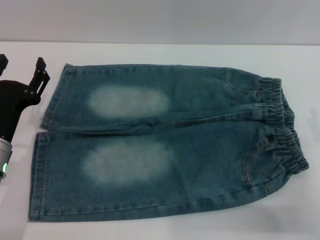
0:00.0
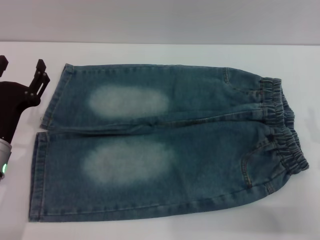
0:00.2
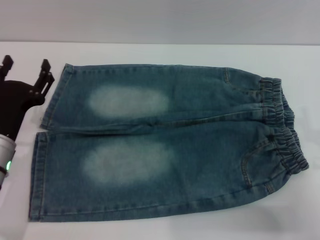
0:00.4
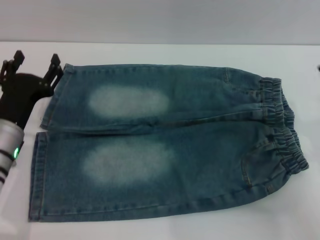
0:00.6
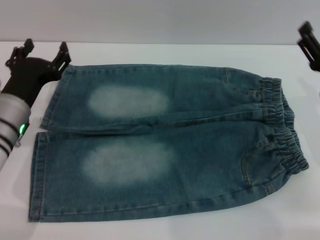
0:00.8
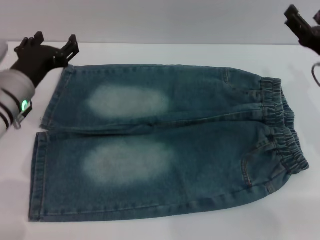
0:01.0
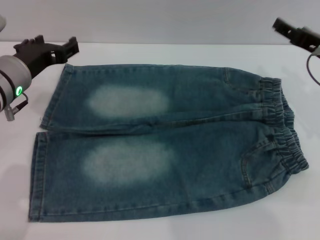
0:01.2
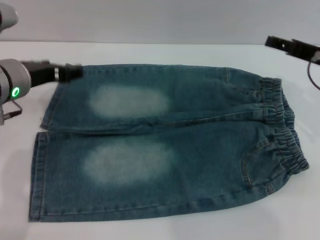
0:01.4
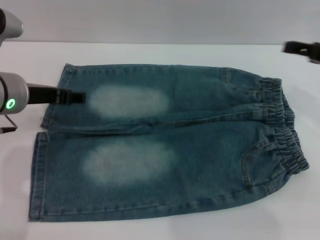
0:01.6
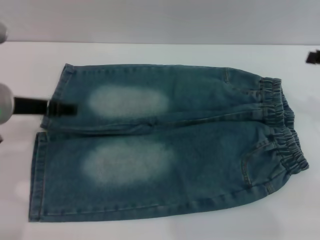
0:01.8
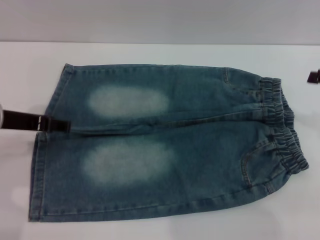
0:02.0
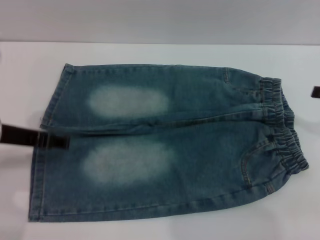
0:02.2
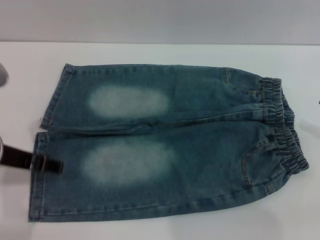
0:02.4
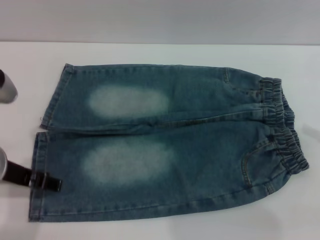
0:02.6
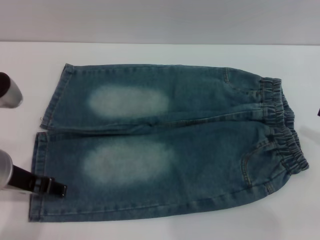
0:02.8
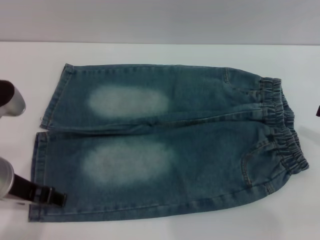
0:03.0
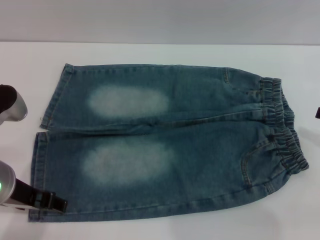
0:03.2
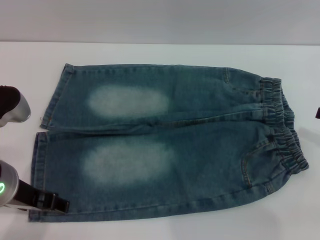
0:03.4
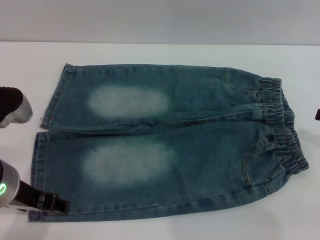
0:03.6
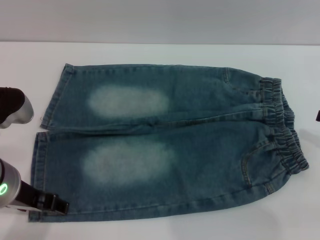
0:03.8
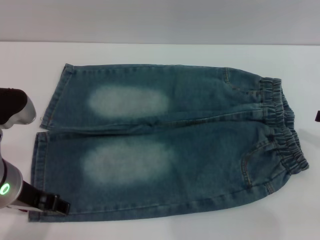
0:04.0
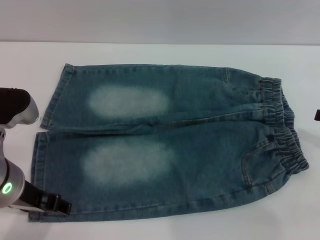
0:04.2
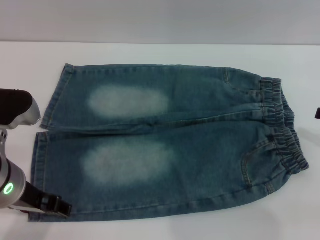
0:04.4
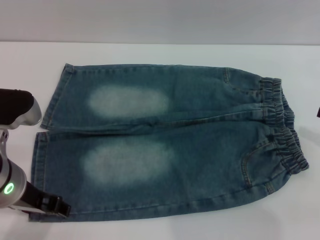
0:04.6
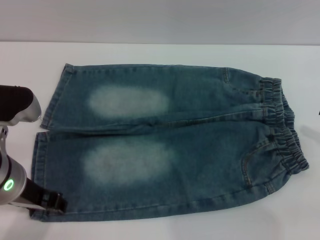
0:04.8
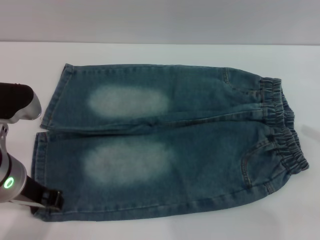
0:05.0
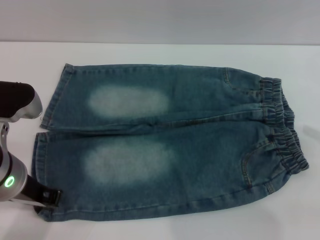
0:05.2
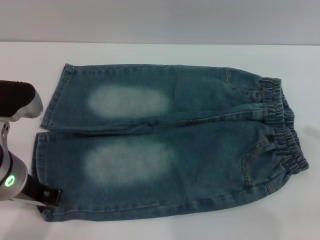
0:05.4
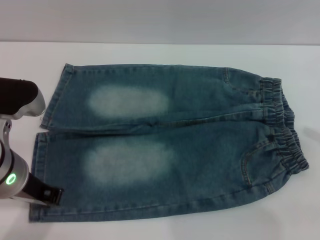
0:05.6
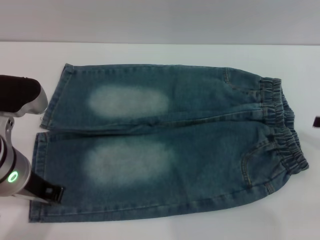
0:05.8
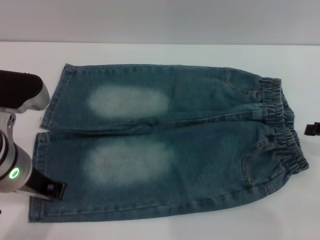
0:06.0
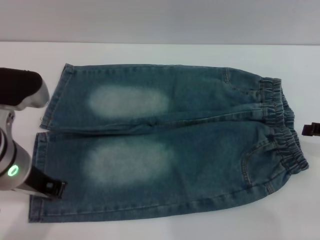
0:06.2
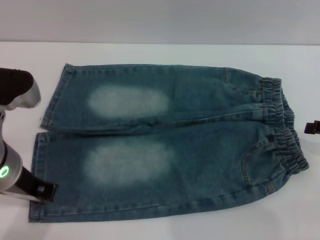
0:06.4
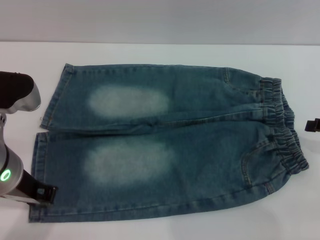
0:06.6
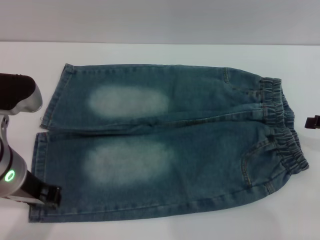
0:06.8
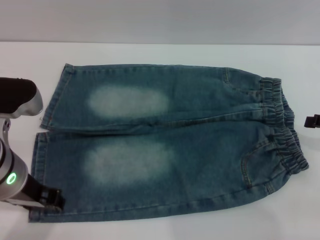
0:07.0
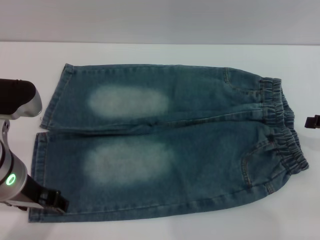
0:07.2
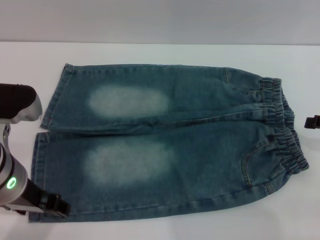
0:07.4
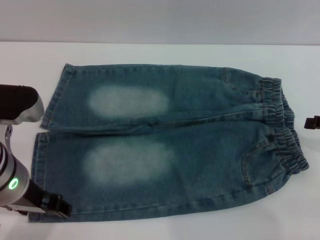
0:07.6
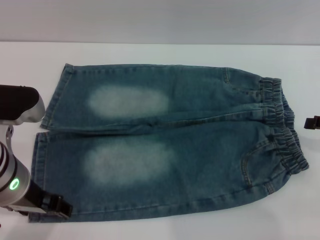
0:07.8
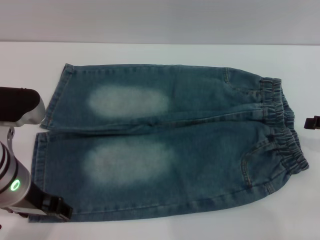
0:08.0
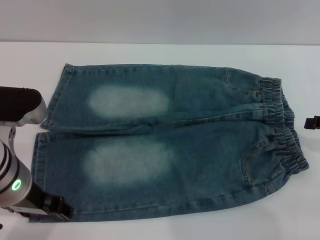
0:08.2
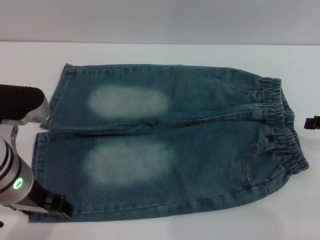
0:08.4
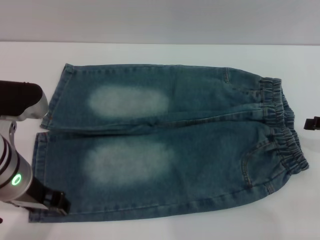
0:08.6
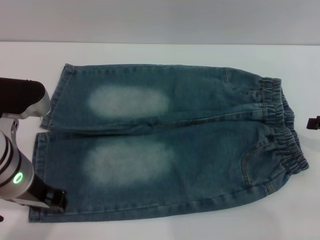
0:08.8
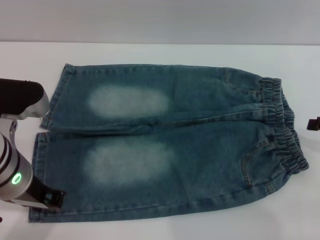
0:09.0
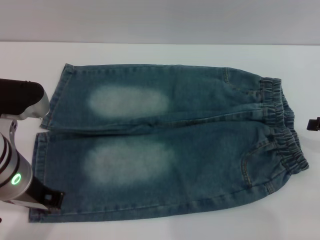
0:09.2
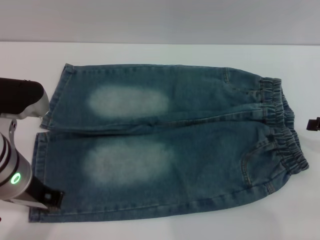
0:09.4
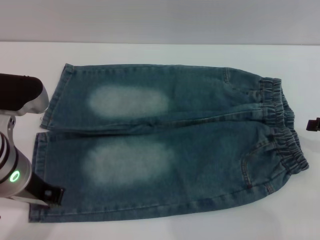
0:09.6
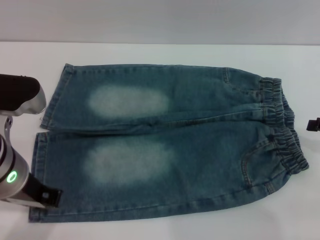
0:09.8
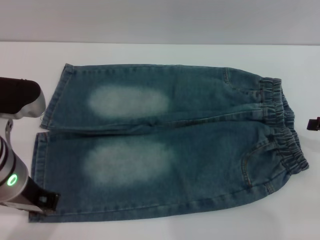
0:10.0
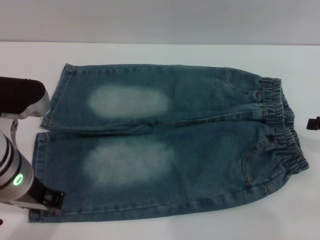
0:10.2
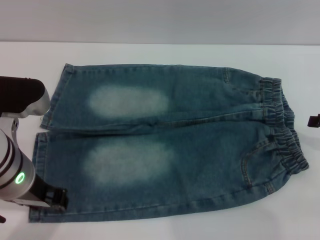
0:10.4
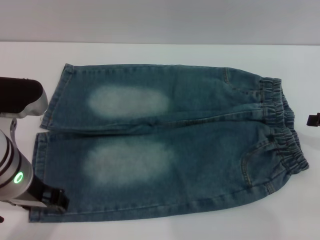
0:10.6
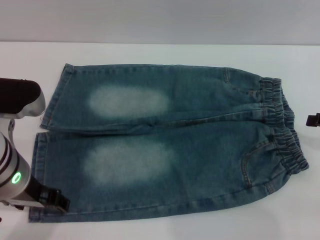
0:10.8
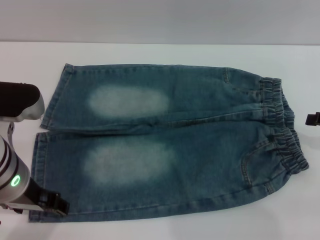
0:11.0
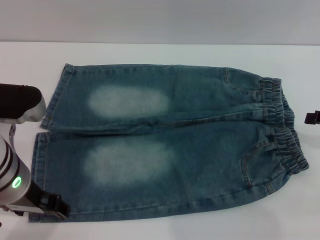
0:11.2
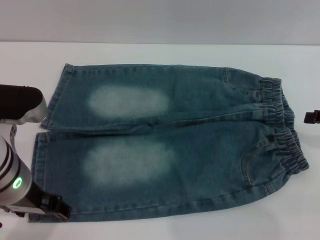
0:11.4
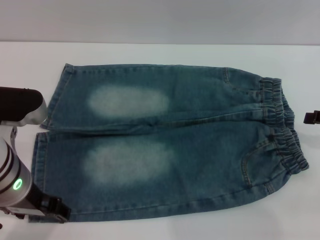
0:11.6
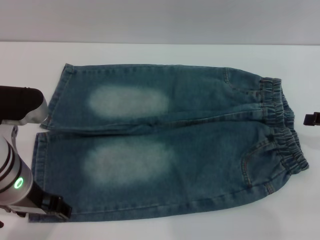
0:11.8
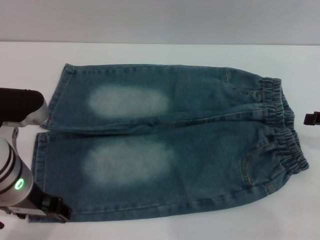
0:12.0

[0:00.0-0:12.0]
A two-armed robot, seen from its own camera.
0:00.0 to 0:01.6: Both grippers move upward and forward, some 15 cm.
0:01.6 to 0:03.0: Both grippers move backward, about 10 cm.
0:03.0 to 0:04.4: The grippers make only small movements.
0:04.4 to 0:06.0: The left gripper closes its fingers.
0:06.0 to 0:07.6: The left gripper opens up.
0:07.6 to 0:09.0: The left gripper closes up.
0:09.0 to 0:10.4: Neither gripper changes place.
0:10.4 to 0:12.0: The left gripper opens up.

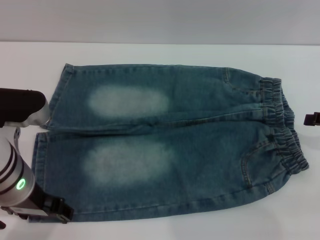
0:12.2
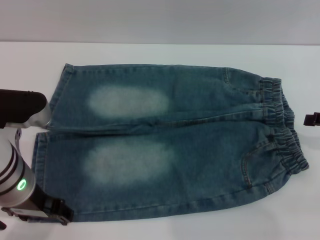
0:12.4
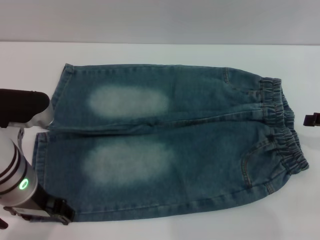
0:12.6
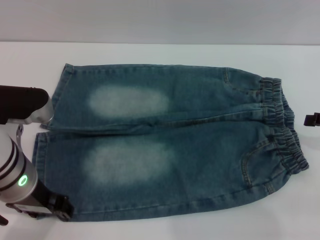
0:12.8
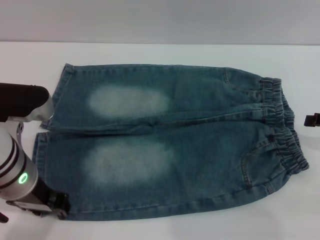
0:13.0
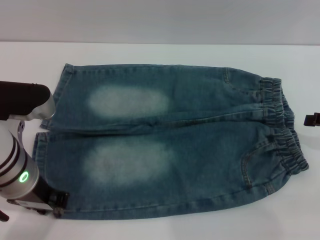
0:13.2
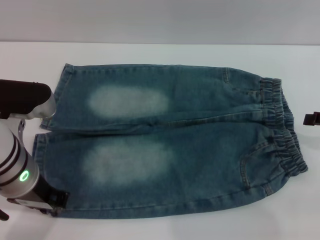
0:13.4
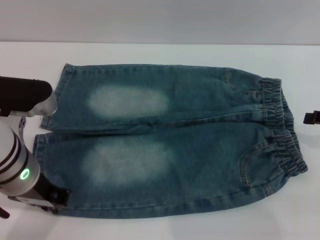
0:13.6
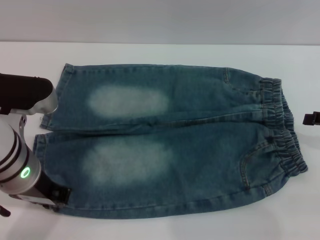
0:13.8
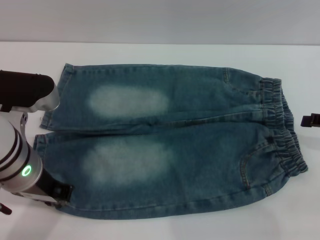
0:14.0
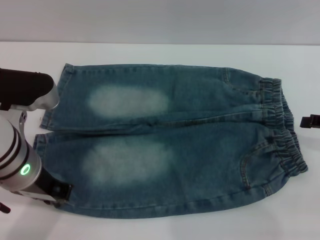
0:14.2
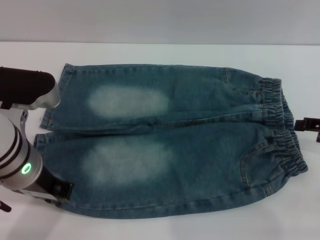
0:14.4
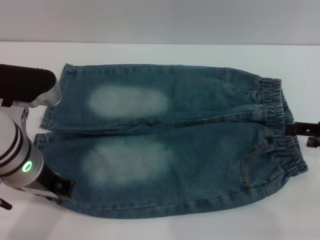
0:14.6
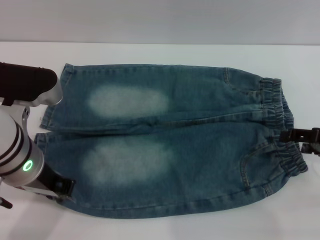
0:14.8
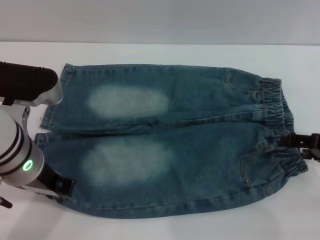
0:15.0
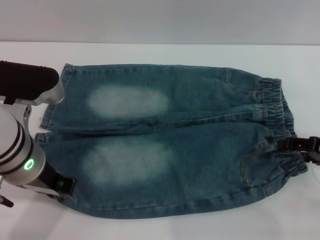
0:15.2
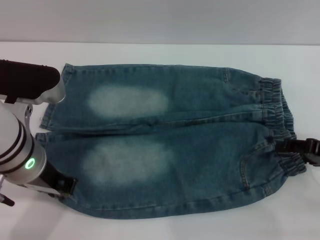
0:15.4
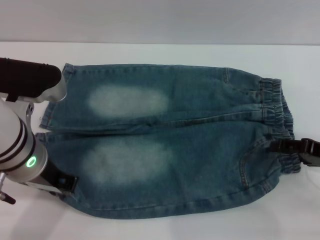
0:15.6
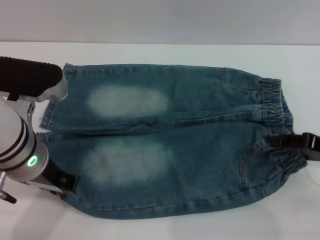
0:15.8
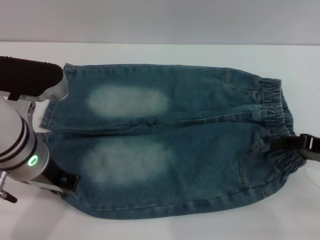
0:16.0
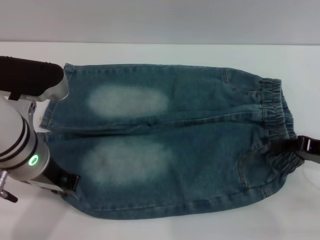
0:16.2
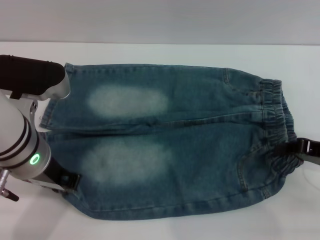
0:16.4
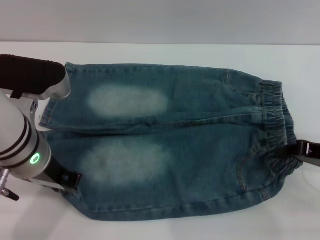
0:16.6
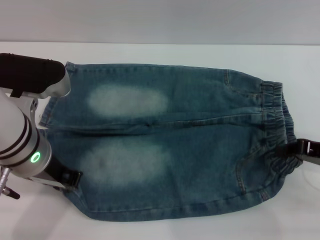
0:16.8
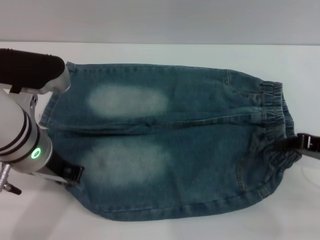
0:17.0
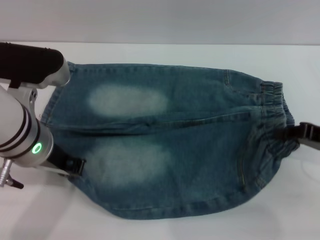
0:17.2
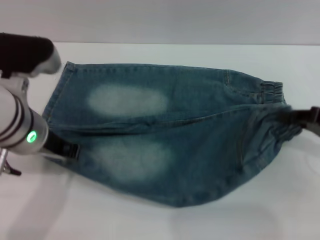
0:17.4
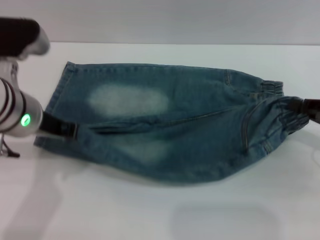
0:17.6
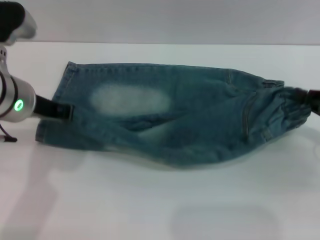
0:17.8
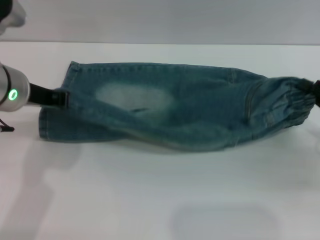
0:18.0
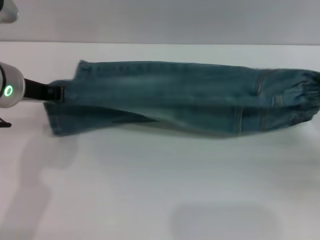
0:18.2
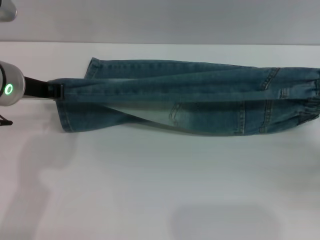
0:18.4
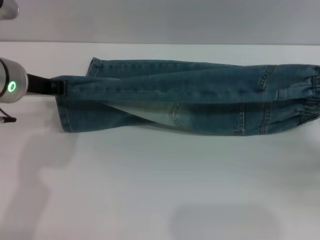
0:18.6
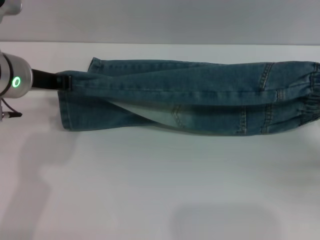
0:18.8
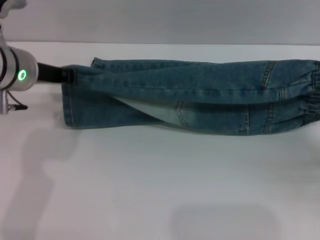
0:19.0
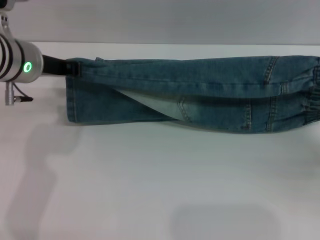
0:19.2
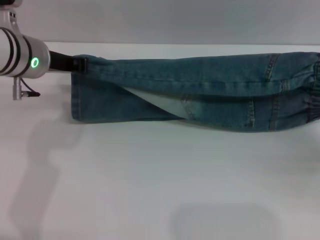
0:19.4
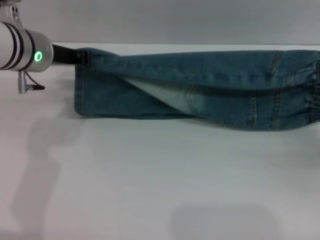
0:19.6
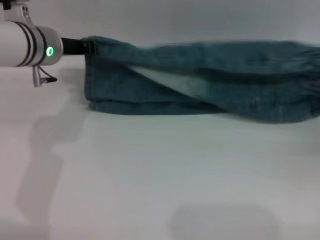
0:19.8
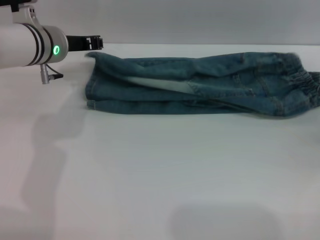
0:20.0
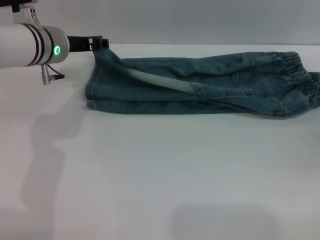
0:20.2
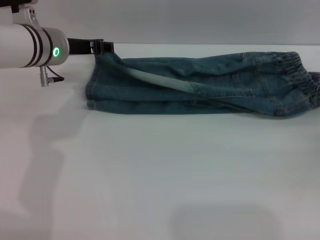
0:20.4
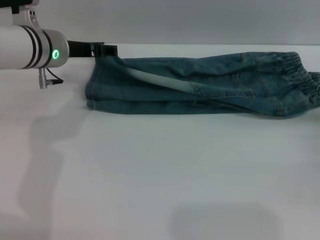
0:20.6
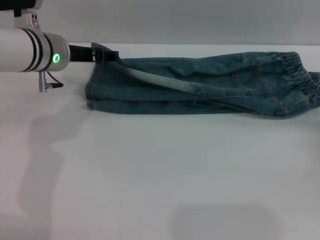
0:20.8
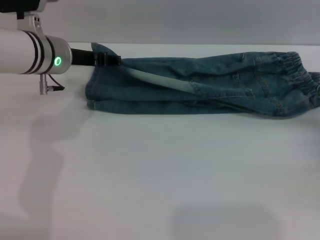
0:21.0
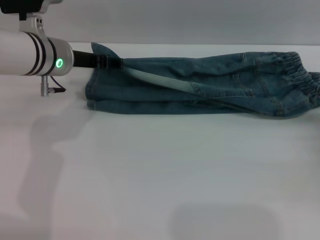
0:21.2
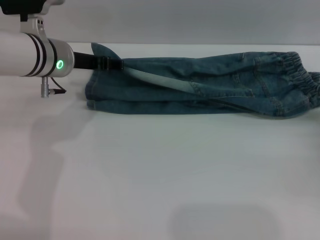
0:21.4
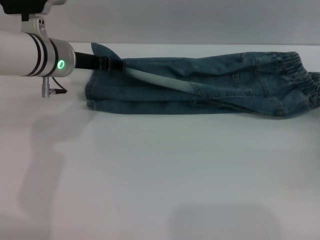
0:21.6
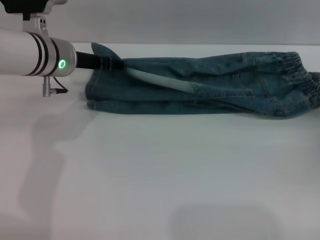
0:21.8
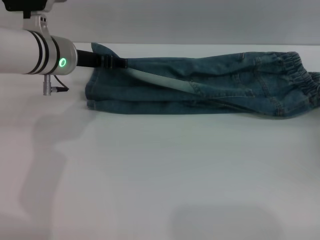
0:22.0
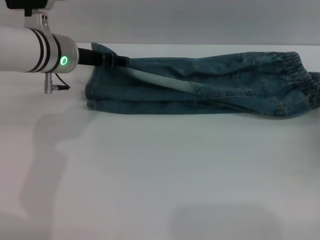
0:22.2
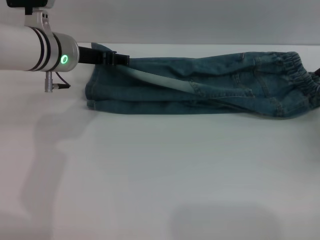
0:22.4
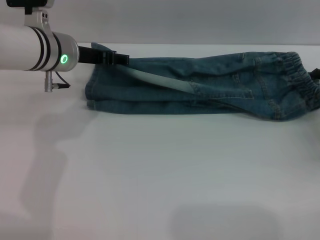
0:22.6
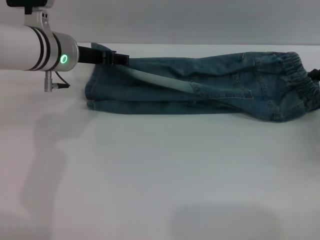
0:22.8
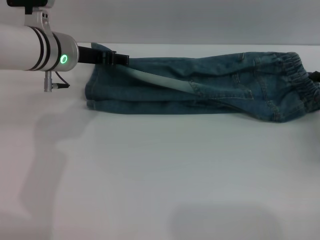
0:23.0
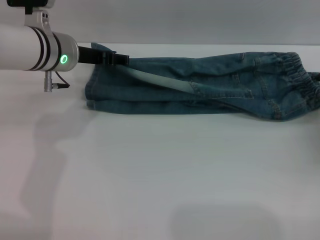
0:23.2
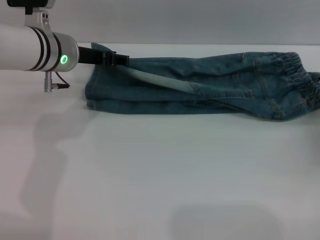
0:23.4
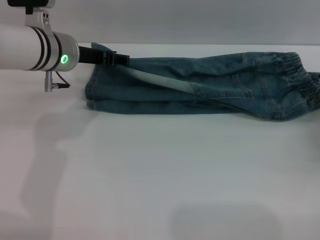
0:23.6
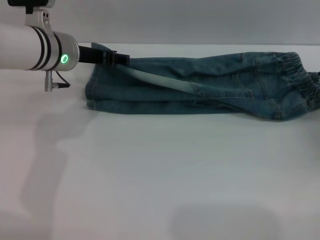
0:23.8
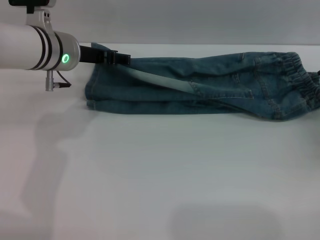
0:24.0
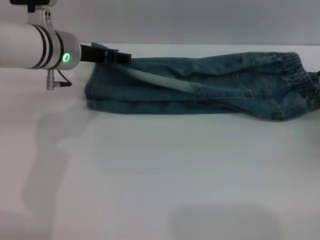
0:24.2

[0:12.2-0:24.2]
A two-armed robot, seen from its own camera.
Step, 0:12.2 to 0:20.4: Fold the bottom of the pants upward with both grippers.
0:12.2 to 0:13.8: The left gripper closes its fingers.
0:13.8 to 0:15.2: The right gripper shifts by about 5 cm.
0:15.2 to 0:16.6: The right gripper closes its fingers.
0:16.6 to 0:18.2: The left gripper heads forward, covering approximately 5 cm, while the right gripper moves some 5 cm.
0:18.2 to 0:19.8: The left gripper is displaced forward by some 10 cm, while the right gripper shifts by about 5 cm.
0:19.8 to 0:21.2: The right gripper opens, while the left gripper opens.
0:21.2 to 0:22.6: The right gripper shifts by approximately 5 cm.
0:22.6 to 0:24.2: The two grippers keep their place.
